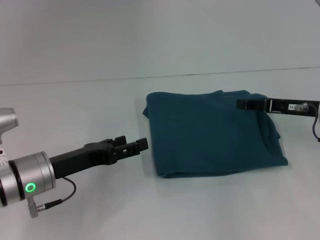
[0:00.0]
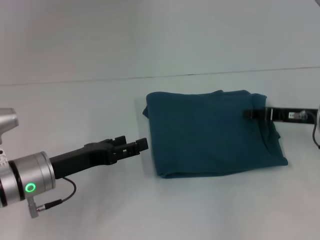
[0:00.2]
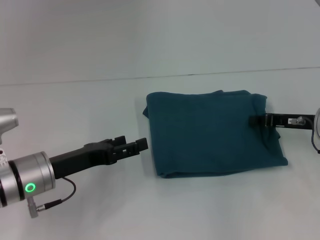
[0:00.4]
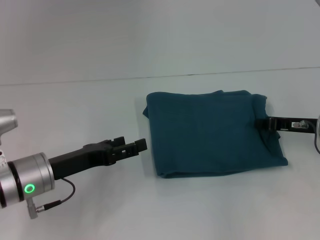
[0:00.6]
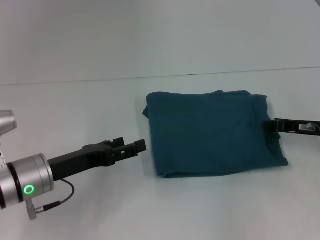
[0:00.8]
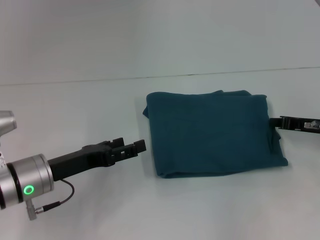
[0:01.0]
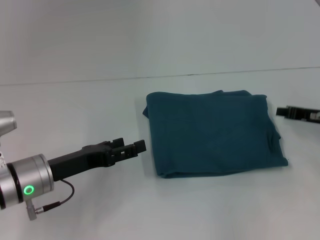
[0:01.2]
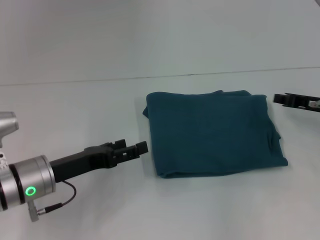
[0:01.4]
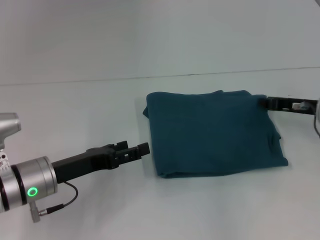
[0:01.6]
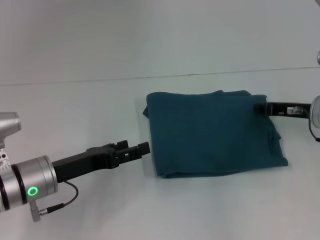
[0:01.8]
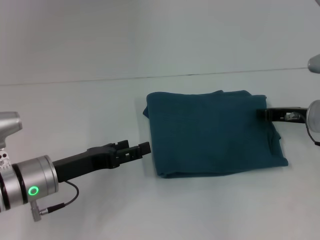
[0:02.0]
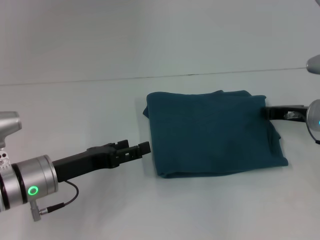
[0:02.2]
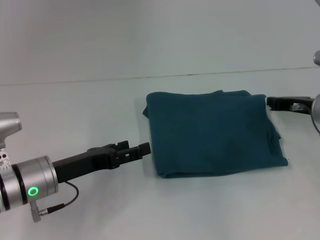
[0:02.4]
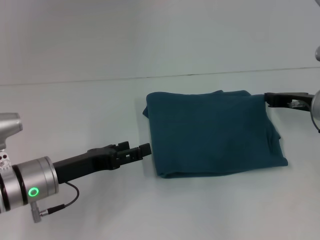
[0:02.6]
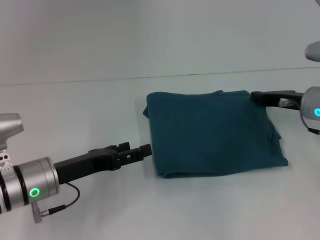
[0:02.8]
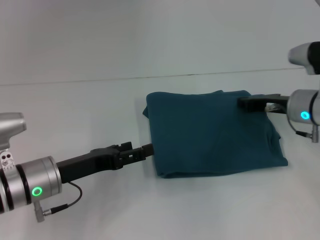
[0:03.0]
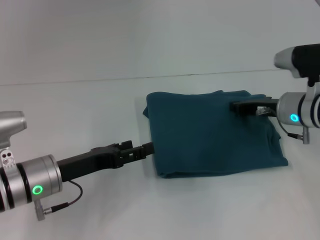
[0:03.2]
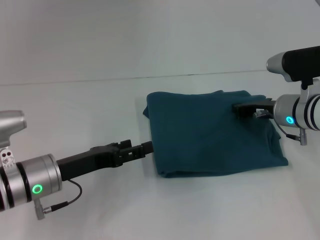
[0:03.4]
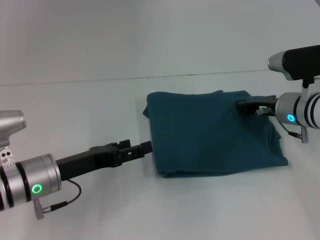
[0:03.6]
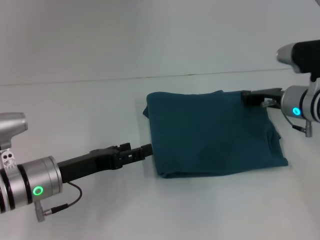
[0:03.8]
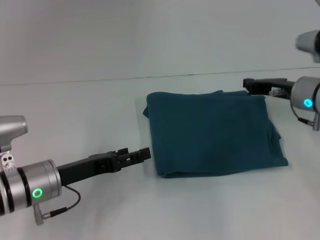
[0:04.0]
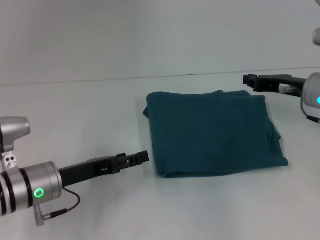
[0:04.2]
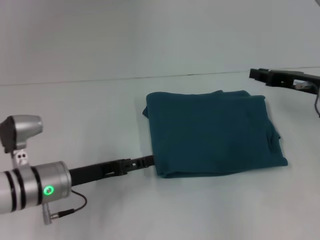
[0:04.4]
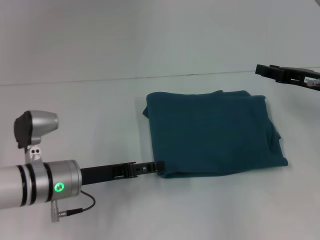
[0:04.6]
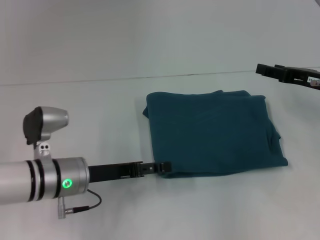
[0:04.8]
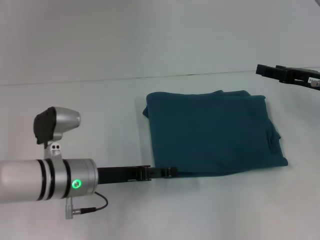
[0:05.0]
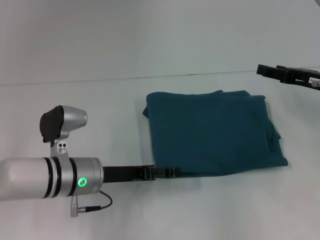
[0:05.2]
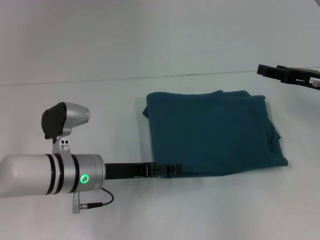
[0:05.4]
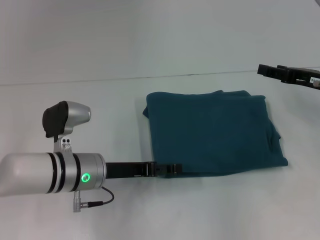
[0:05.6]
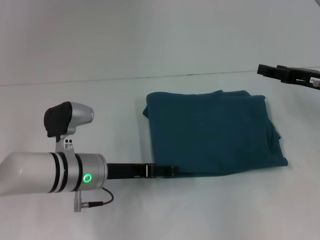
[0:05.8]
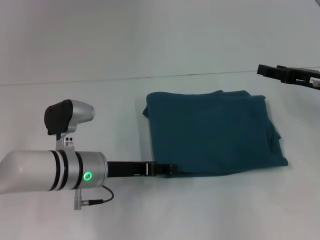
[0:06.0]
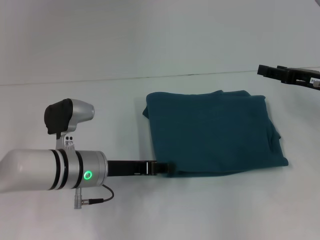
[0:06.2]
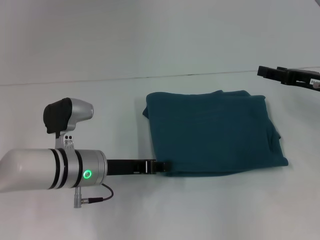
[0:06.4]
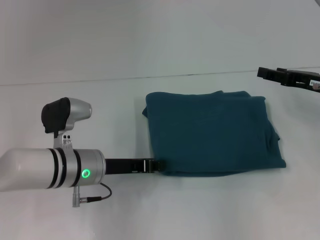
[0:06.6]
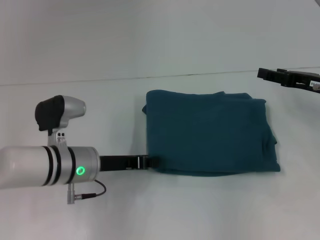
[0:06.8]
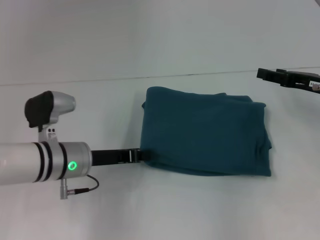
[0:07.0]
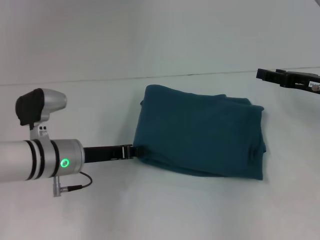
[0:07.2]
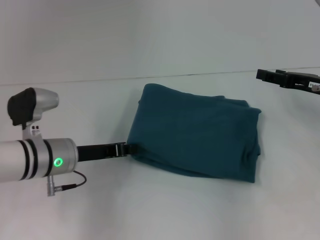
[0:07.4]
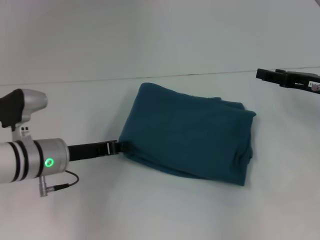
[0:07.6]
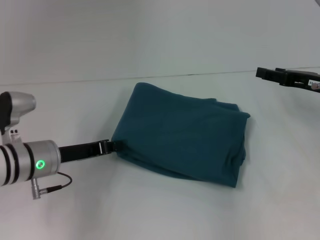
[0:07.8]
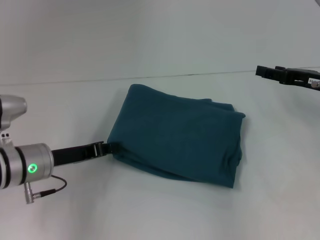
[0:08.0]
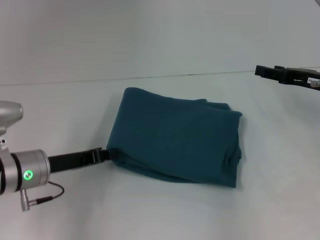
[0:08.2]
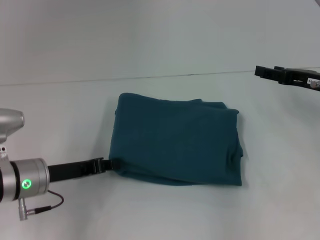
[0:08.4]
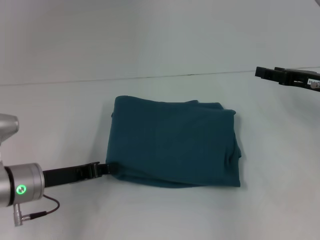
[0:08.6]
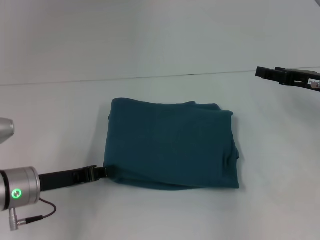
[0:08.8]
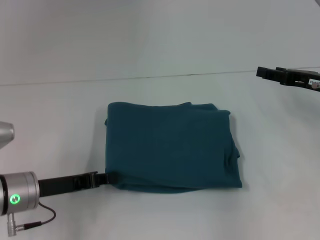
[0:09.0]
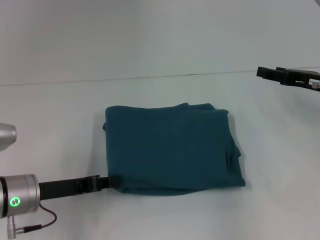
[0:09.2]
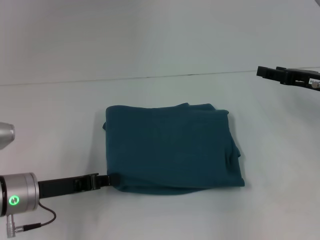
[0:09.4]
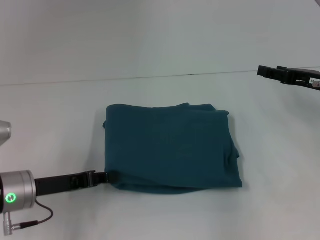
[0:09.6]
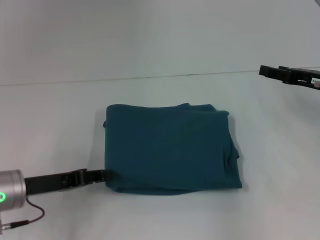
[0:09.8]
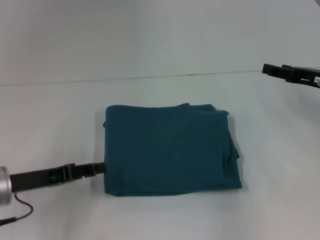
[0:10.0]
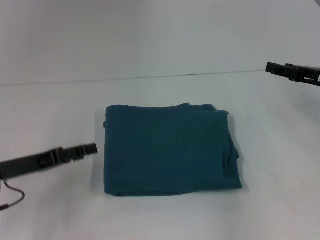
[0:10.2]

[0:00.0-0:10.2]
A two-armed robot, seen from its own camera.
0:00.0 to 0:01.4: The right gripper closes its fingers.
0:01.4 to 0:03.0: The right gripper heads to the left, covering about 5 cm.
0:03.0 to 0:04.4: The right gripper moves about 5 cm.
0:04.4 to 0:05.8: The right gripper opens; the left gripper moves to the right, approximately 5 cm.
0:05.8 to 0:07.2: The left gripper closes up.
0:07.2 to 0:08.8: The left gripper is displaced to the left by about 5 cm.
0:08.8 to 0:10.2: The left gripper changes place by approximately 5 cm, and opens.

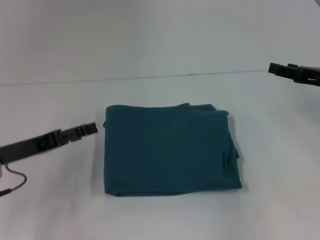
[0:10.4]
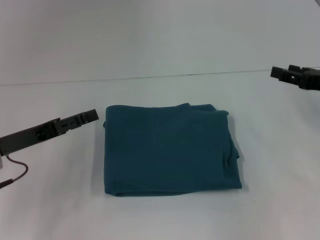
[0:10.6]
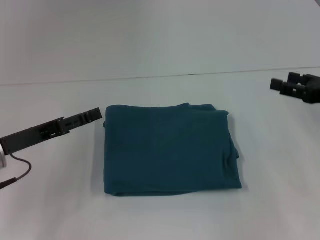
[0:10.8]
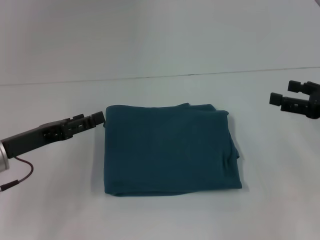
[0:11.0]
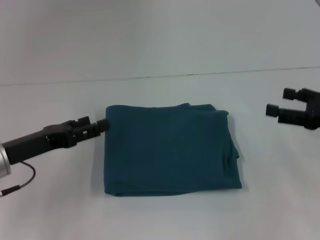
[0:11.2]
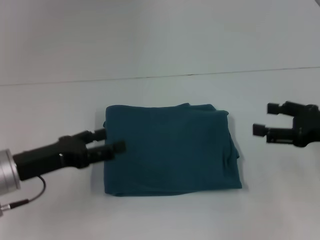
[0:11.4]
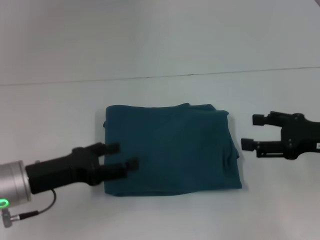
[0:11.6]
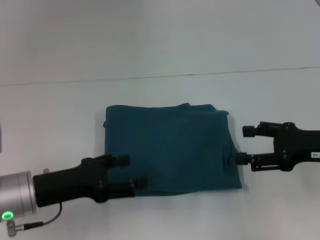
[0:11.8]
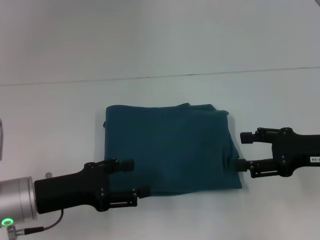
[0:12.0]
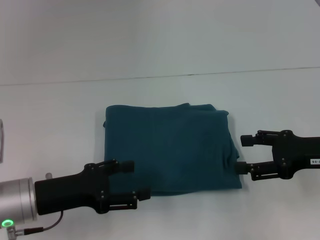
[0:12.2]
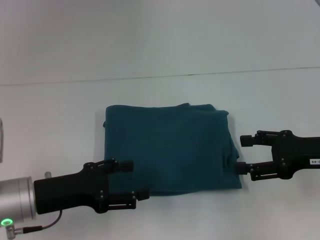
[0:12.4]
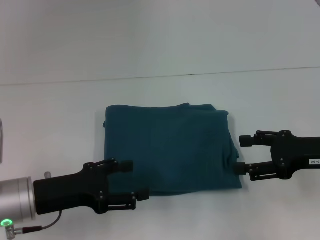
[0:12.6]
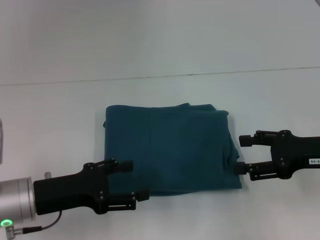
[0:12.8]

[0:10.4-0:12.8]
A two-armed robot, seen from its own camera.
0:10.4 to 0:11.6: The right gripper shifts about 5 cm backward. Meanwhile the left gripper ends up roughly 5 cm from where it was, and opens.
0:11.6 to 0:12.8: There are only small adjustments of the grippers.

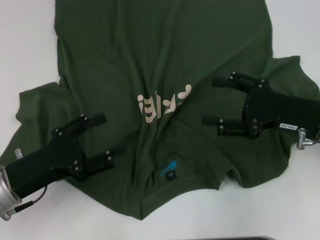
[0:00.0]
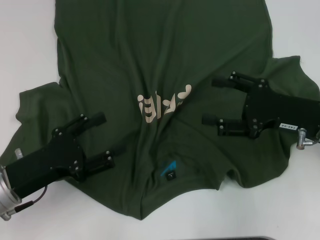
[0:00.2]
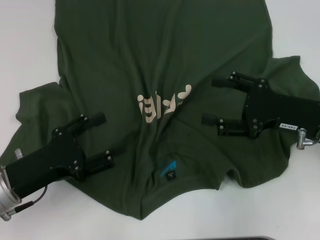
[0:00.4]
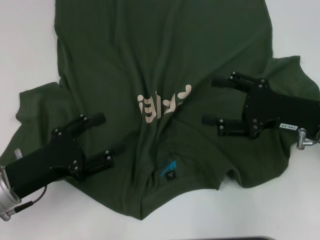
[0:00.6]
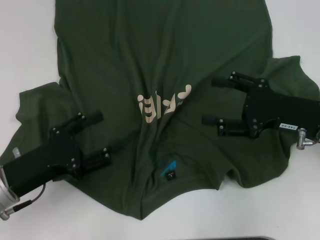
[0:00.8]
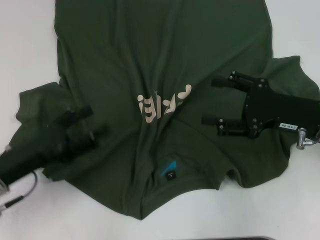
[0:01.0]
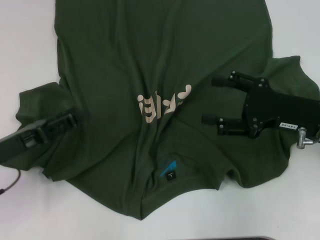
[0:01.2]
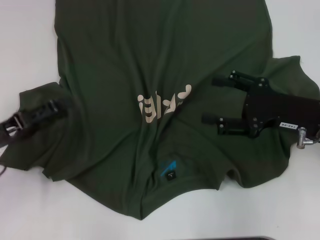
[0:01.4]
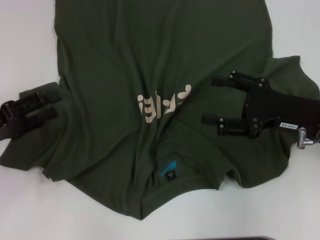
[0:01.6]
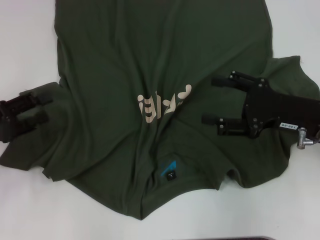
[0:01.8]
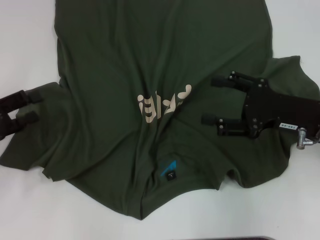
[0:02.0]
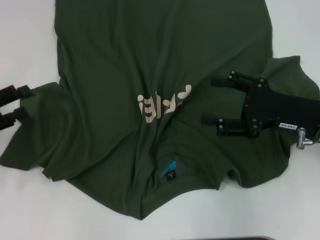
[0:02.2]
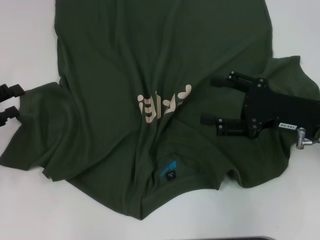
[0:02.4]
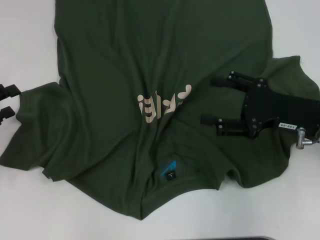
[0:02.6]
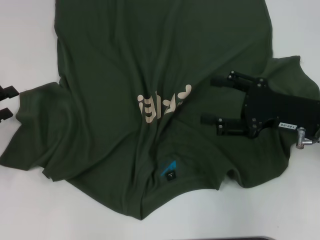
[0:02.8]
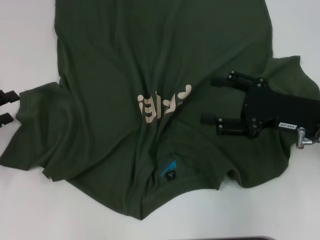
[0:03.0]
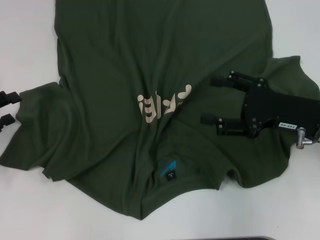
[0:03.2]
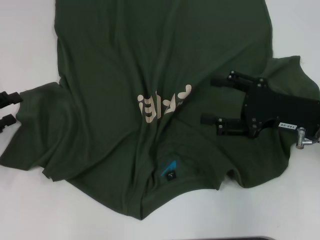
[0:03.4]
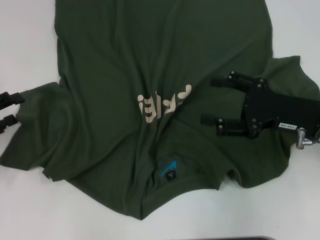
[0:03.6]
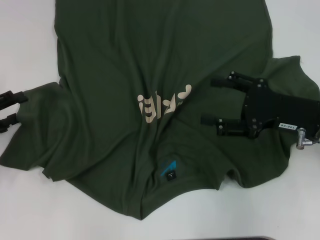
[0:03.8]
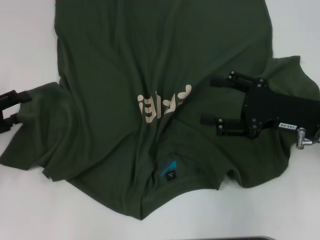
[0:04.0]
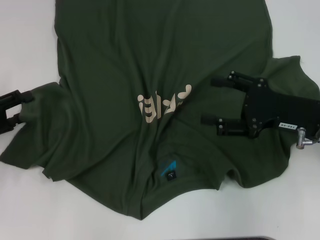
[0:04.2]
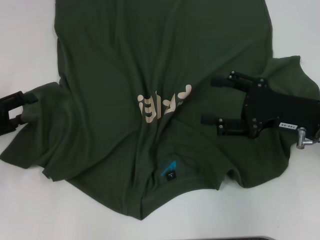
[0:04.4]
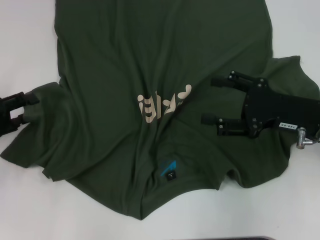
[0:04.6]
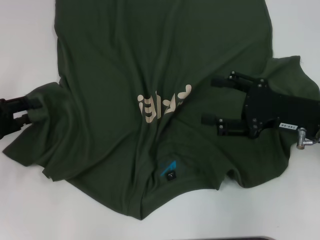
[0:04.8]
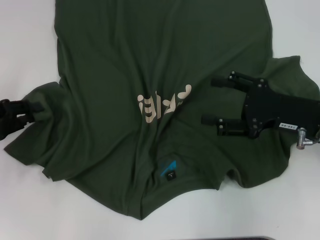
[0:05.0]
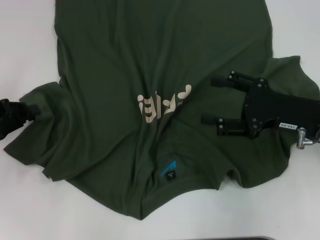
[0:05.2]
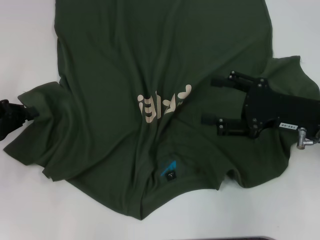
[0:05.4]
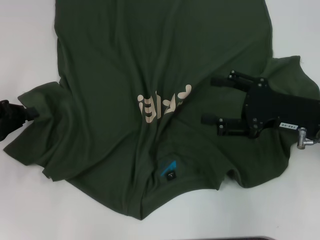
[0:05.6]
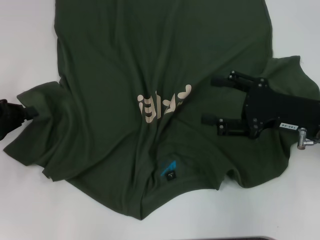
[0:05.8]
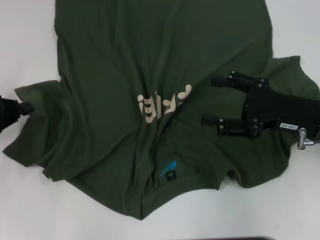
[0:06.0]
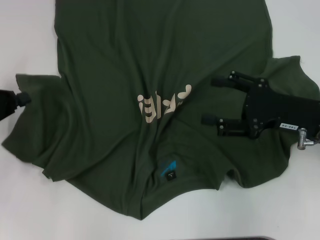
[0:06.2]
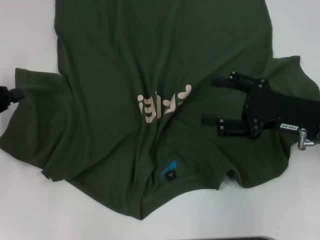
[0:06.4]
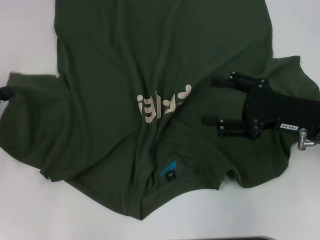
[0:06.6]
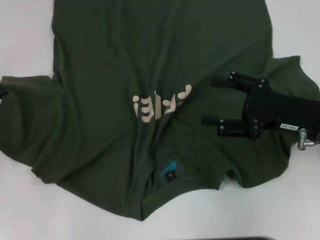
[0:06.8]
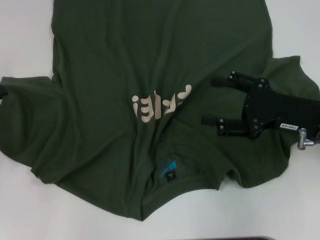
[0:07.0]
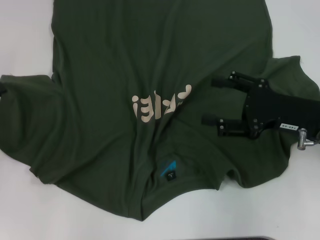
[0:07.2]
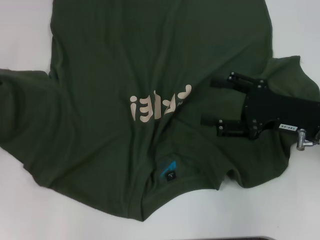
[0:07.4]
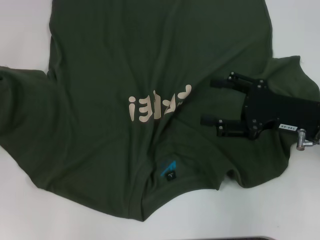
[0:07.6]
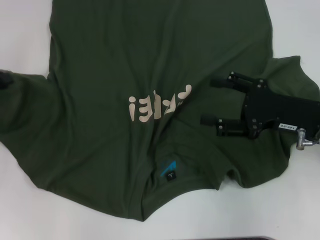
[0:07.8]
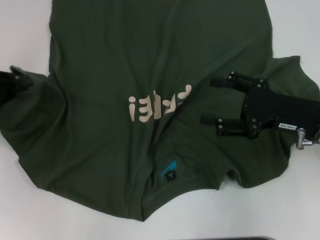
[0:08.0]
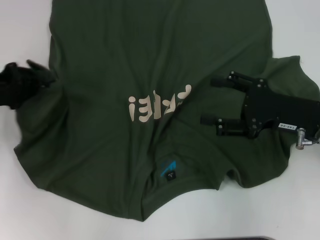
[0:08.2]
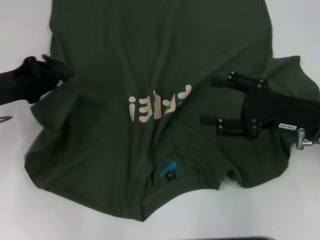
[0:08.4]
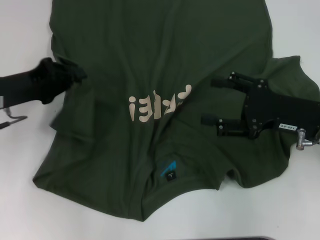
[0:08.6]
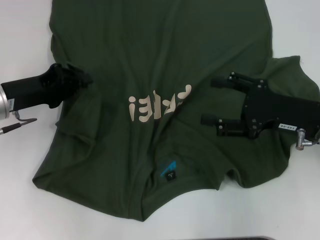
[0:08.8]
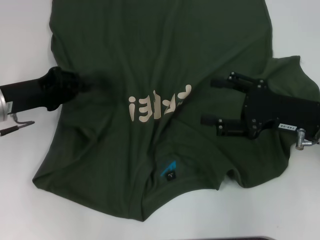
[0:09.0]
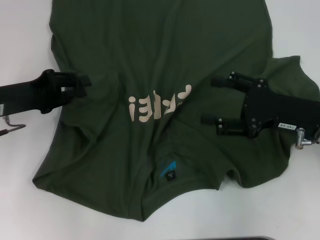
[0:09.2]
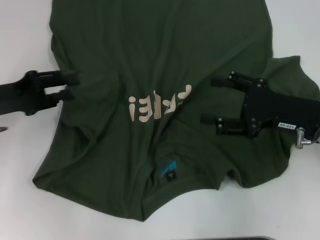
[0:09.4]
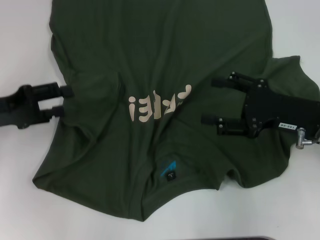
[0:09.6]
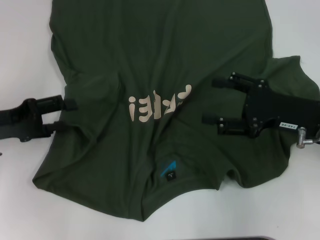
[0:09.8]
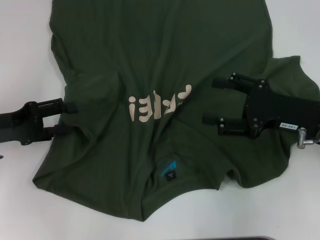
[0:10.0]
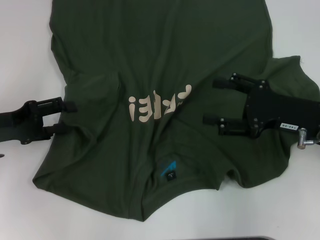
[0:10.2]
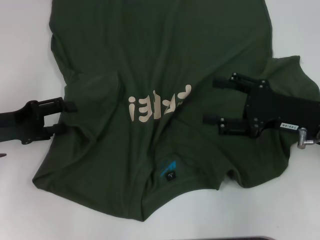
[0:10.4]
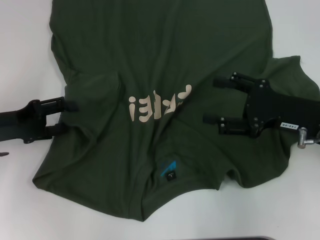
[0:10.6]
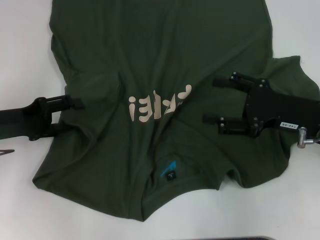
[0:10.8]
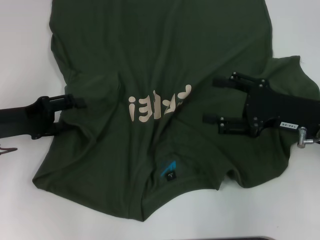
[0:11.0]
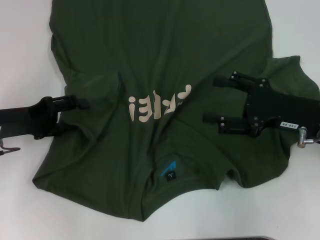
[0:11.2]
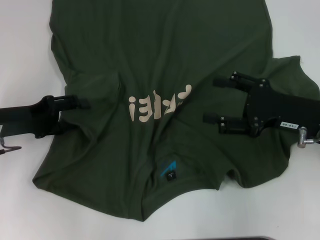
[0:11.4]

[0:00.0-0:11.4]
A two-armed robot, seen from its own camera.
Step, 0:00.0 to 0:09.2: Fold the bottom left sleeve with your left hand.
0:00.0 to 0:01.4: The left gripper is displaced to the left by approximately 5 cm.
0:01.4 to 0:02.8: The left gripper goes about 5 cm to the left.
0:02.8 to 0:04.2: The grippers stay close to where they were, moving slightly.
0:04.2 to 0:05.6: The left gripper closes up.
0:05.6 to 0:07.2: The left gripper shifts by about 5 cm.
0:07.2 to 0:08.6: The left gripper travels to the right by approximately 10 cm.
0:08.6 to 0:10.0: The left gripper shifts by about 5 cm, and opens.
0:10.0 to 0:11.4: There are only small adjustments of the grippers.
